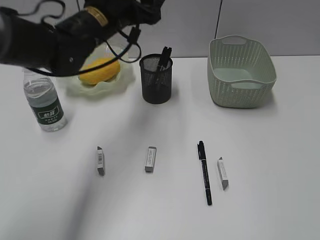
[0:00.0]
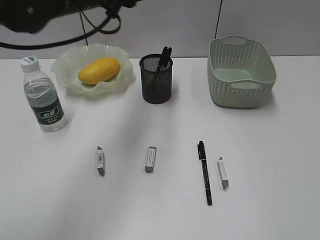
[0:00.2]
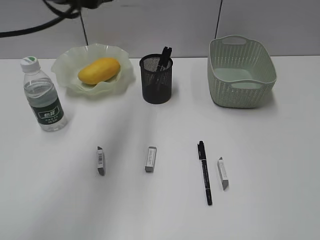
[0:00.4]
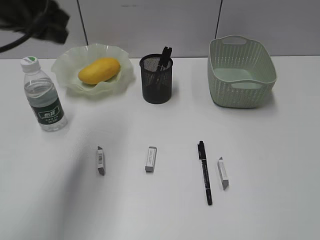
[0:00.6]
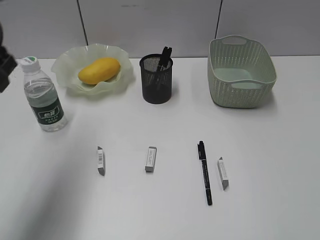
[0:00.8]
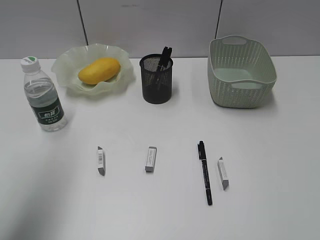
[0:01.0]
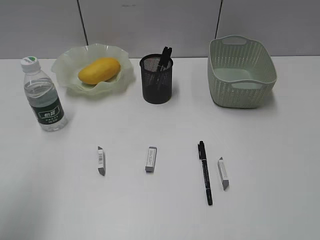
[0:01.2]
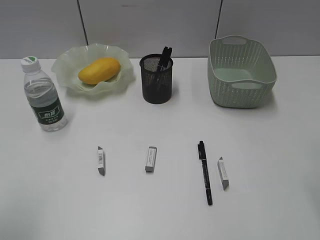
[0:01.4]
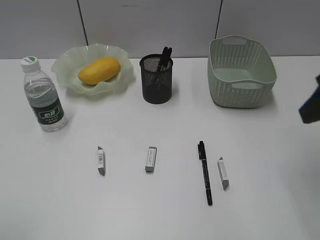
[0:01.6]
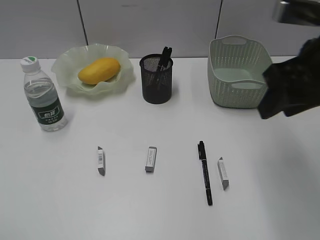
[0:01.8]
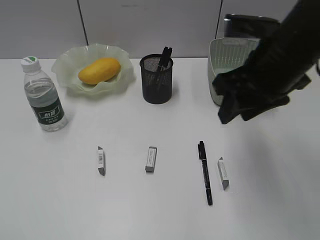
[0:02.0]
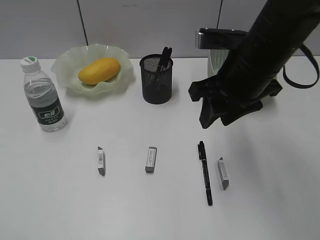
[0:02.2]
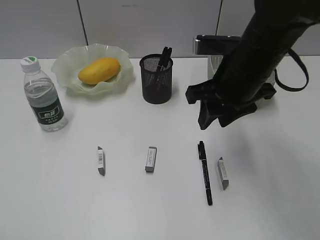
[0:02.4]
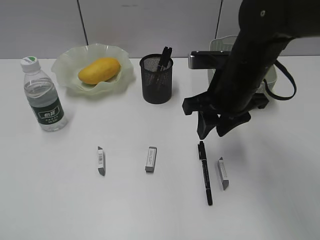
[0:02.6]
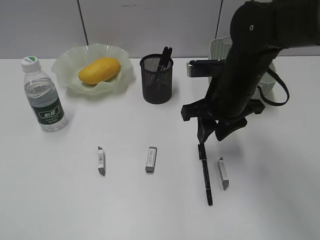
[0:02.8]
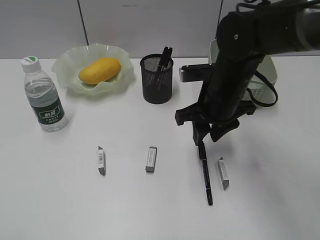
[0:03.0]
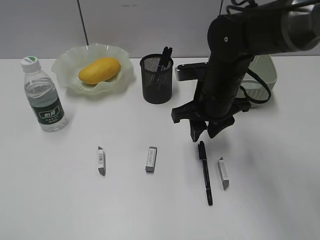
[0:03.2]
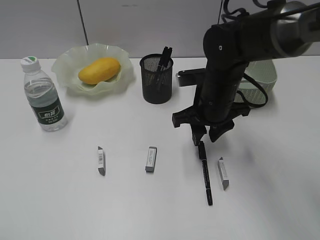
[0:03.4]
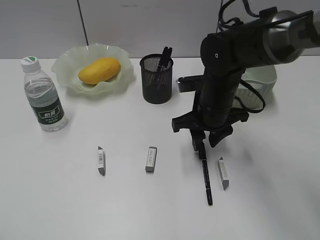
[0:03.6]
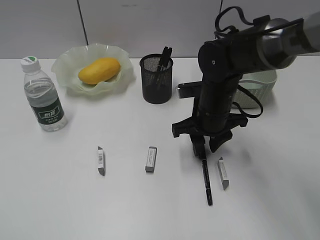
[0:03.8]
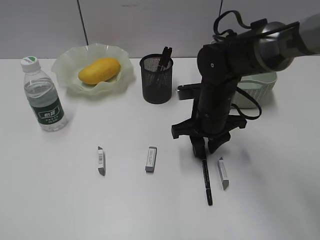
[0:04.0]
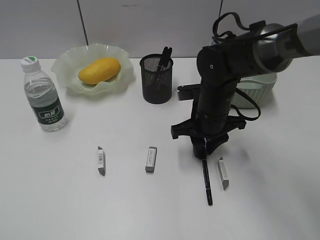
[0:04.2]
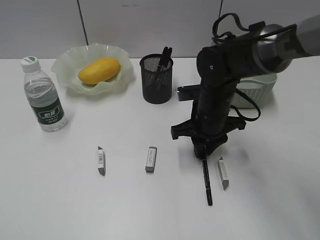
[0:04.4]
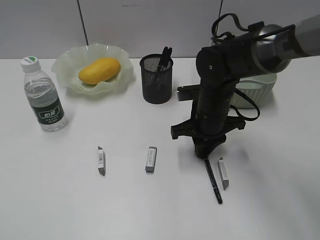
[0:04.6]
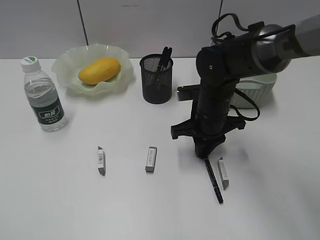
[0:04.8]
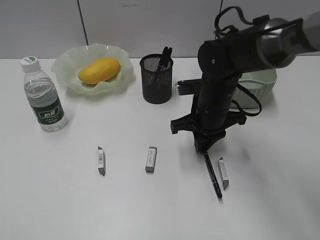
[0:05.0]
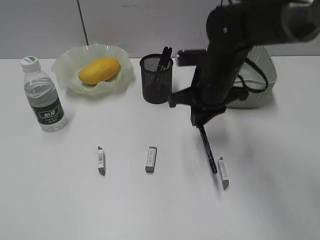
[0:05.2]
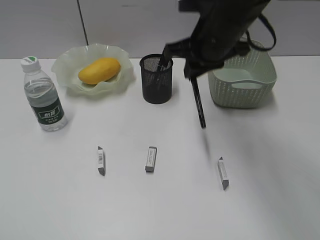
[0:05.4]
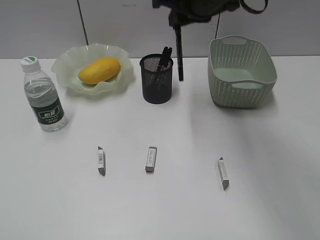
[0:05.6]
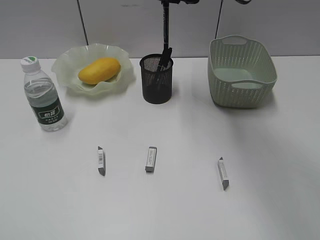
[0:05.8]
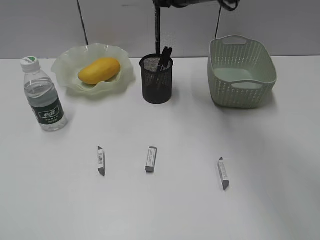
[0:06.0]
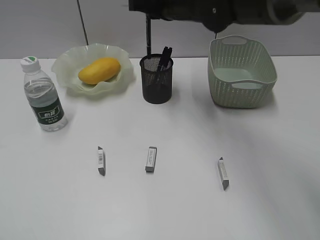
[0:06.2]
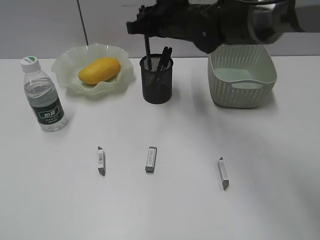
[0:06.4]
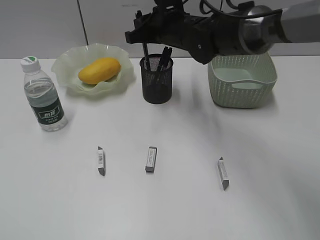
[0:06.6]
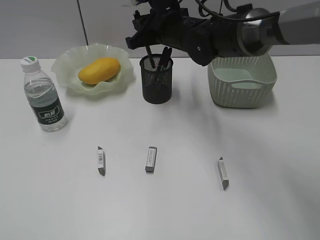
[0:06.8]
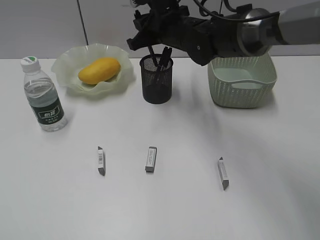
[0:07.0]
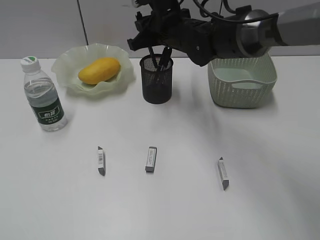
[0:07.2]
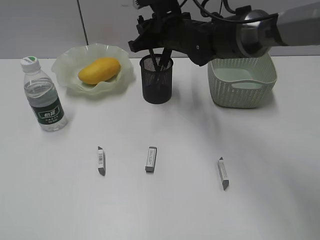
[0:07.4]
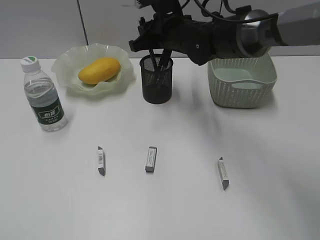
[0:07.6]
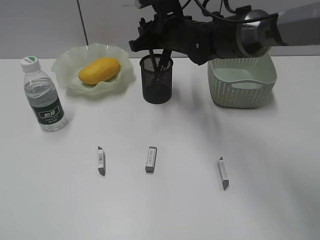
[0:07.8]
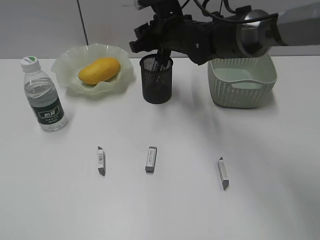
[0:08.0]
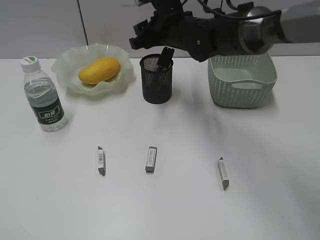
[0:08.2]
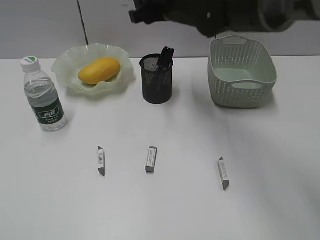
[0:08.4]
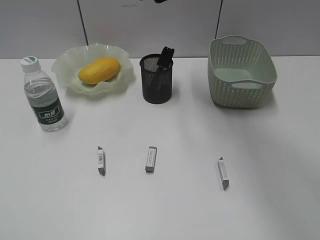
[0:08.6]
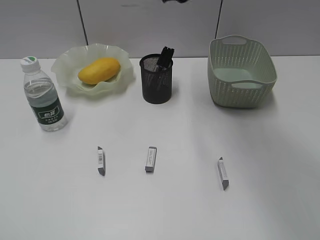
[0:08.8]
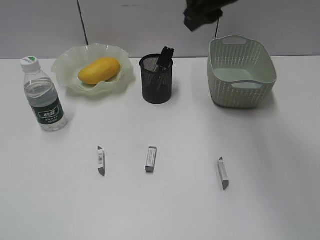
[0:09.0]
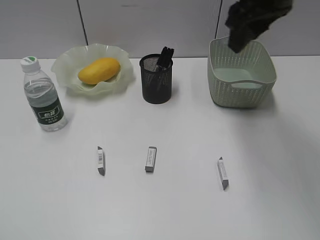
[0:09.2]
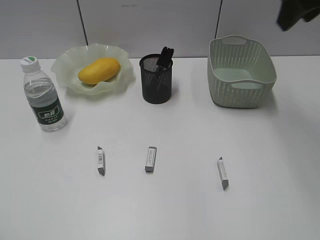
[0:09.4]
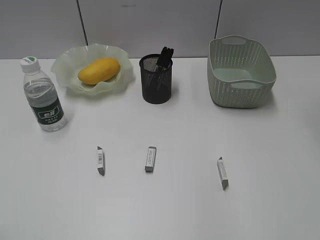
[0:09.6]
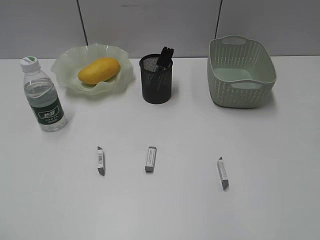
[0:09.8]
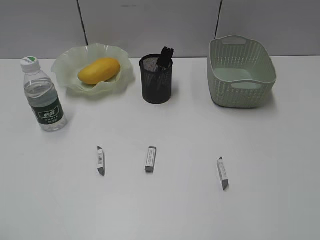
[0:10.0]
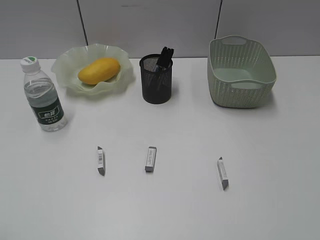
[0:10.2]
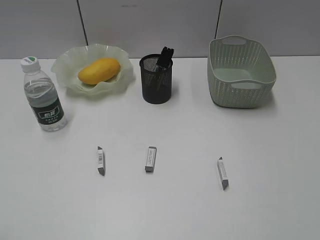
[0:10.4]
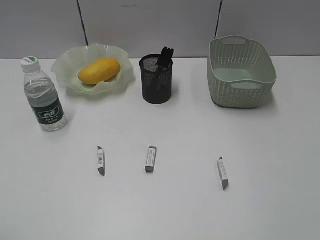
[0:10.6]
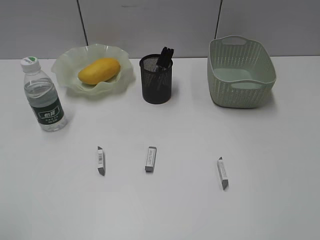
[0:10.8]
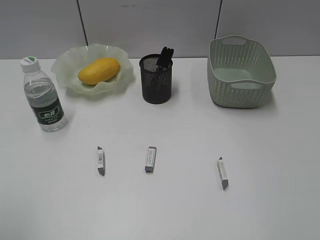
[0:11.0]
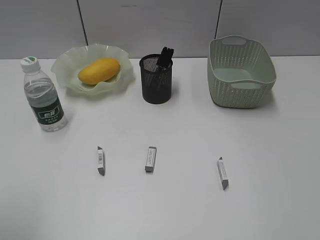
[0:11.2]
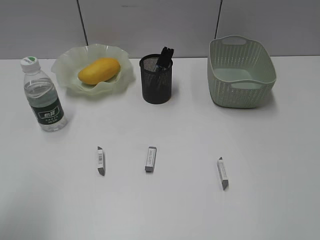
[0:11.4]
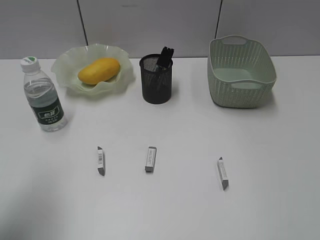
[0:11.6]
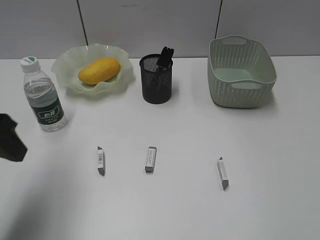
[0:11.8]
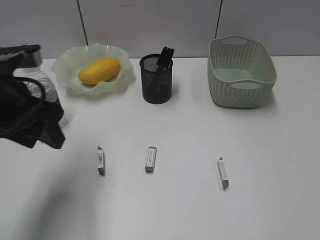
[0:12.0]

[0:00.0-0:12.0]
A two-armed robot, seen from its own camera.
Step, 0:00.0 to 0:04.8: Grasp the black pen with right gripper.
Step, 0:05.0 to 0:08.2: Place the black pen in pen holder with right gripper.
0:00.0 to 0:01.6: The right gripper is displaced forward by some 25 cm, while the left gripper goes roughly 40 cm backward and to the left.
0:01.6 to 0:03.0: The right gripper shifts some 20 cm downward, to the left and forward.
0:03.0 to 0:04.4: The right gripper shifts approximately 5 cm downward.
0:04.4 to 0:06.0: The right gripper goes about 20 cm upward and forward.
0:06.0 to 0:07.6: The right gripper travels downward by roughly 10 cm.
0:07.6 to 0:09.0: The right gripper shifts approximately 20 cm upward, backward and to the right, and opens its fingers.
0:09.0 to 0:10.4: The left gripper opens up; the right gripper shifts some 30 cm backward and to the right.
0:10.4 to 0:12.0: The left gripper goes roughly 30 cm forward and to the right.

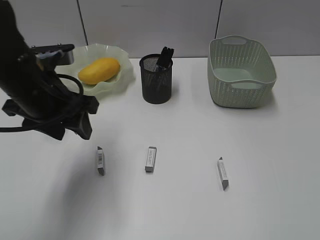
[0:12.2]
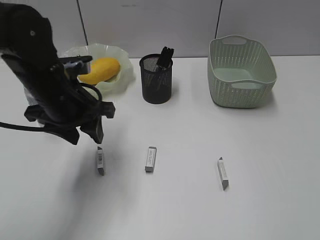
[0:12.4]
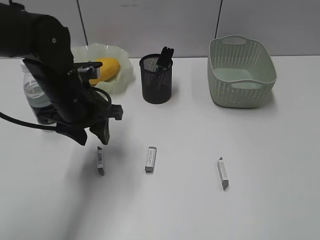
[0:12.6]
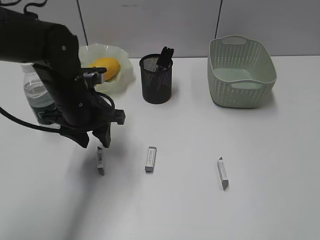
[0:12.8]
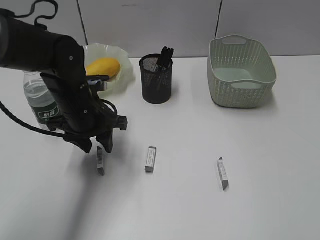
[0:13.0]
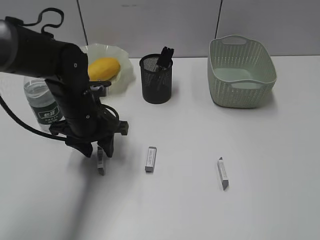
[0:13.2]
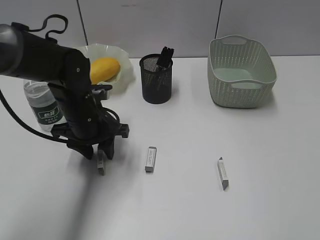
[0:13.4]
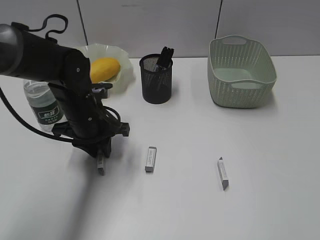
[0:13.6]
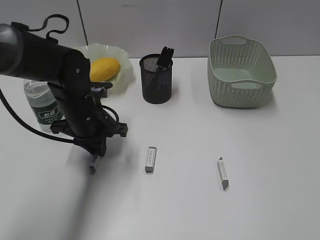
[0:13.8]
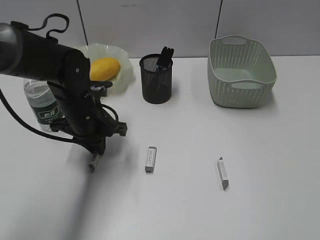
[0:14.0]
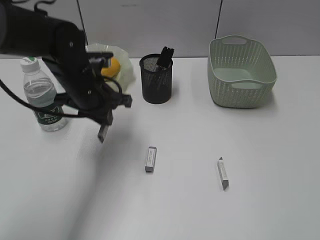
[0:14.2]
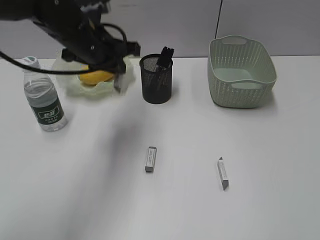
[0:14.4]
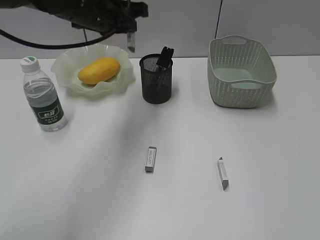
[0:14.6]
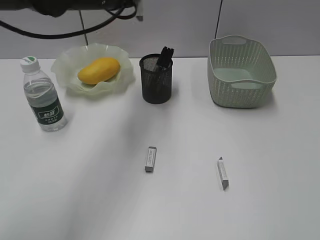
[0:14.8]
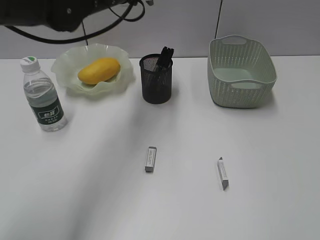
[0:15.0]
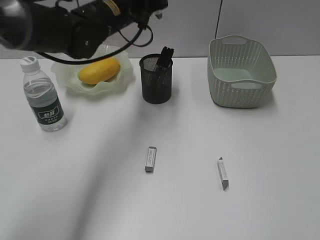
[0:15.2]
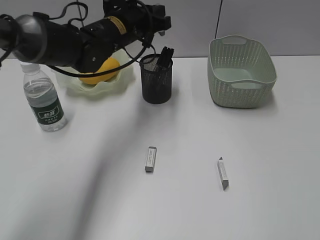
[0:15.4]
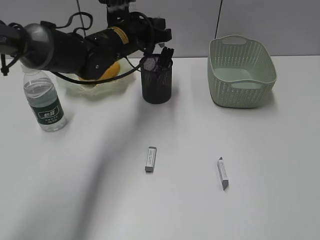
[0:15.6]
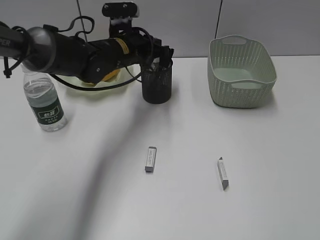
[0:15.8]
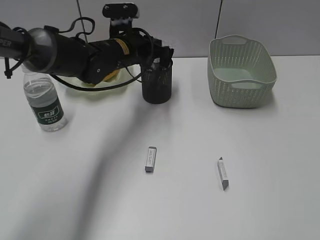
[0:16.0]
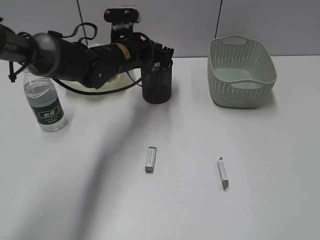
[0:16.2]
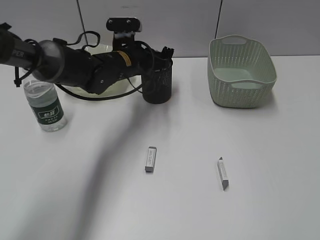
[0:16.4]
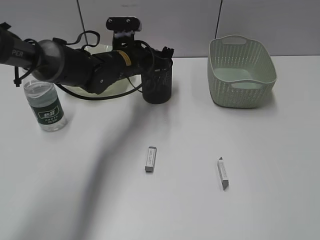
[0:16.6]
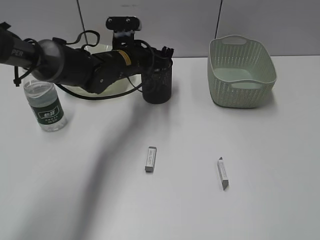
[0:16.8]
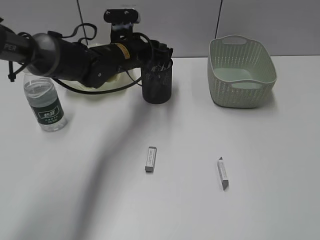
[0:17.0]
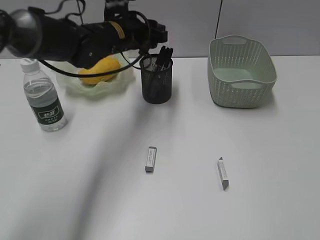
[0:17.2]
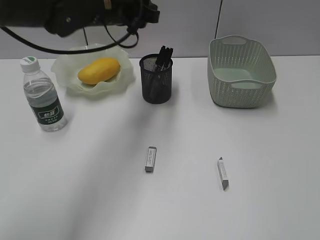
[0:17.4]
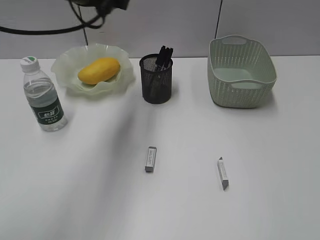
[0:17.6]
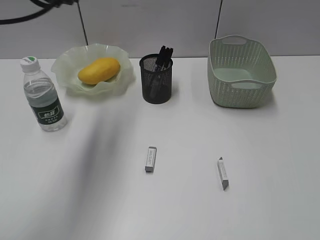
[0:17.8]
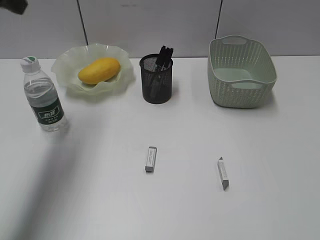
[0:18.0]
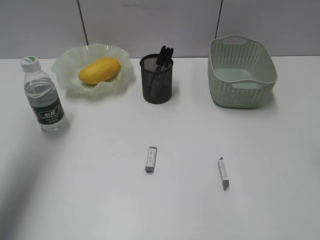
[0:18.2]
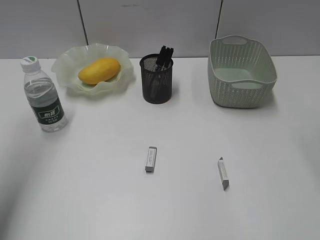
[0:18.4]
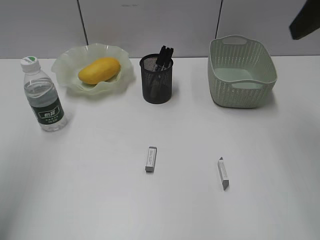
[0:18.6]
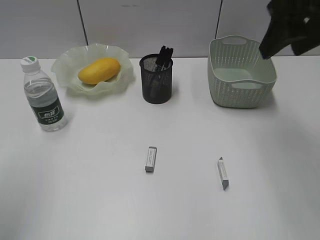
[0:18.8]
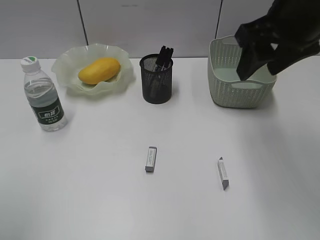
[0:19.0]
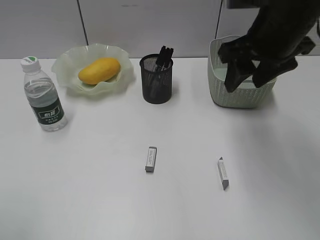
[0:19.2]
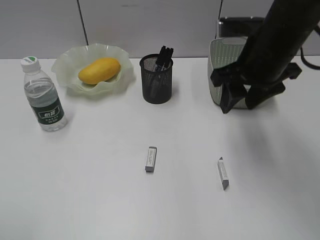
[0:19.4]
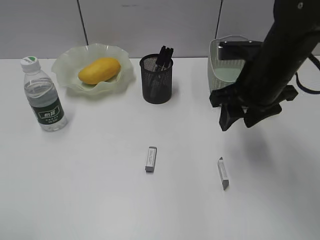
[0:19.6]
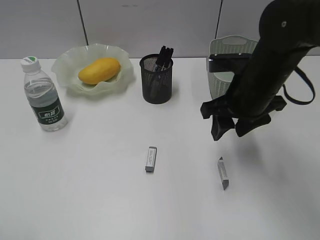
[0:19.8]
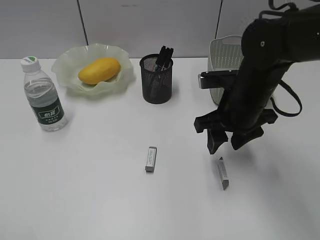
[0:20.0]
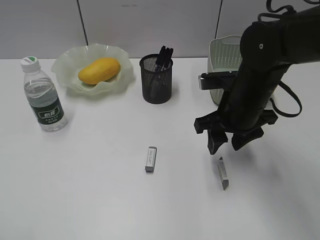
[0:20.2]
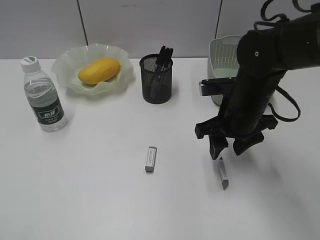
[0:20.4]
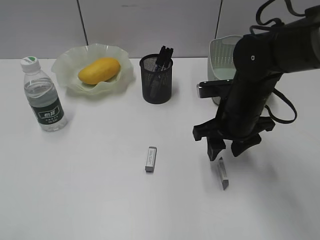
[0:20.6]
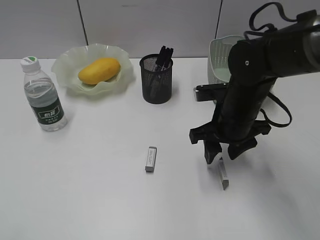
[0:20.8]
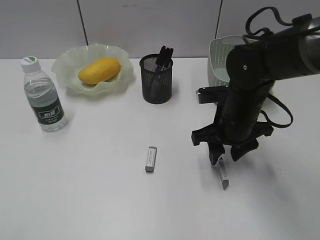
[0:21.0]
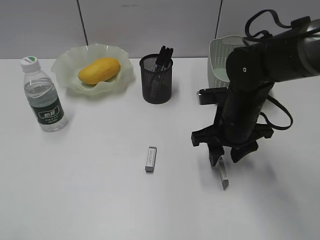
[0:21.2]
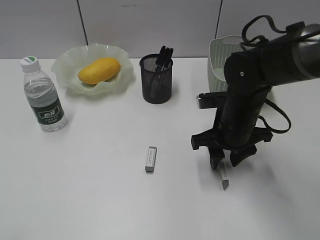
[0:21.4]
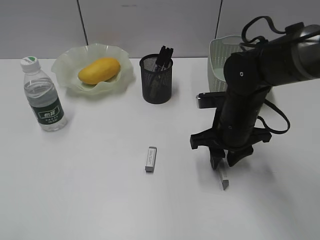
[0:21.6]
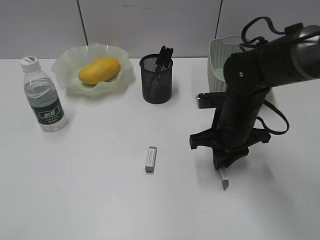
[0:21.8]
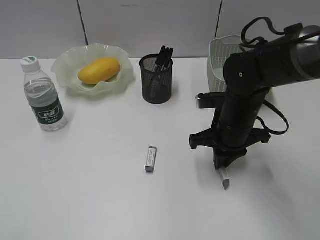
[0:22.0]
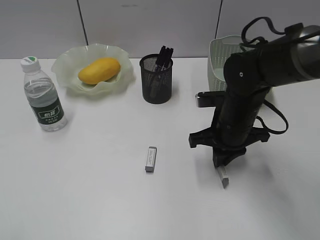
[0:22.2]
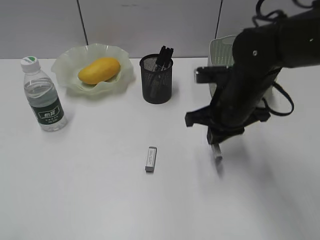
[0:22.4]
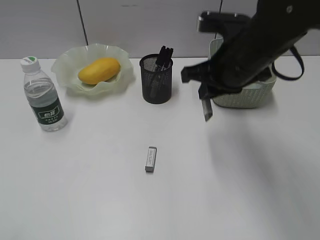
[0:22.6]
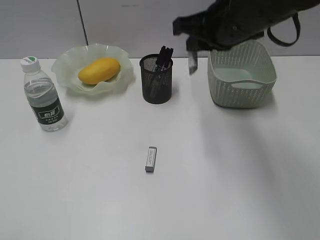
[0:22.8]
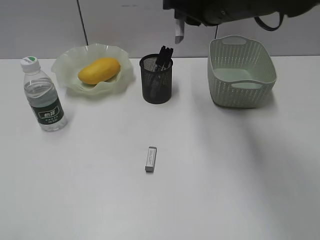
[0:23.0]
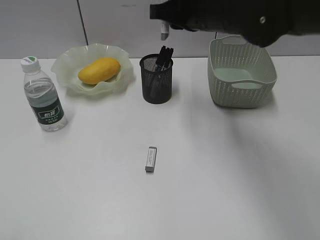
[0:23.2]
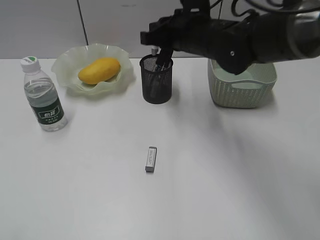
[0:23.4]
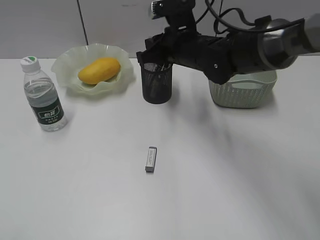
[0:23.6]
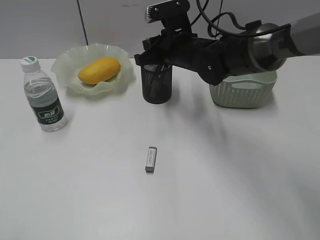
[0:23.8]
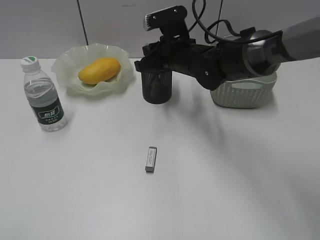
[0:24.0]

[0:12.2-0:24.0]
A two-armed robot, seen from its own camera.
Step, 0:14.0 to 0:17.2: Place the eraser in pen holder with left gripper.
Step, 0:17.4 to 0:21.8: Grasp the eraser with right gripper.
0:12.2 to 0:13.6: The left gripper heads downward, covering about 10 cm, and closes its fingers.
0:13.6 to 0:15.2: The left gripper moves upward, forward and to the right, roughly 15 cm.
0:15.2 to 0:16.6: The left gripper moves downward, some 10 cm.
0:16.6 to 0:18.2: The right gripper is displaced forward and upward by roughly 20 cm; the left gripper heads to the left, upward and backward, covering about 40 cm, and opens.
0:18.2 to 0:19.6: The right gripper heads downward, to the left and forward, covering approximately 25 cm. The left gripper moves backward and downward, about 30 cm.
0:19.6 to 0:21.0: The right gripper travels downward by about 10 cm.
0:21.0 to 0:22.6: The right gripper heads upward, covering roughly 15 cm, and closes up.
0:22.6 to 0:24.0: The right gripper travels forward, downward and to the left by roughly 15 cm.
